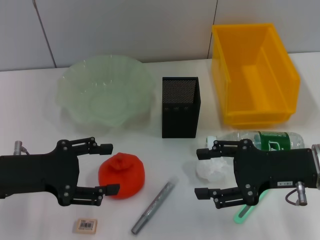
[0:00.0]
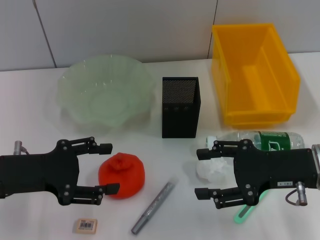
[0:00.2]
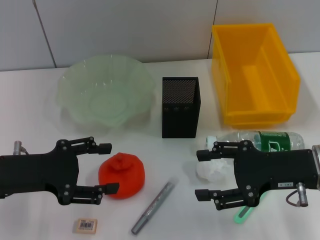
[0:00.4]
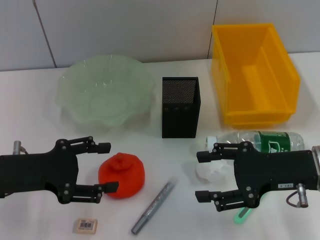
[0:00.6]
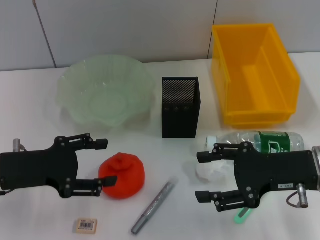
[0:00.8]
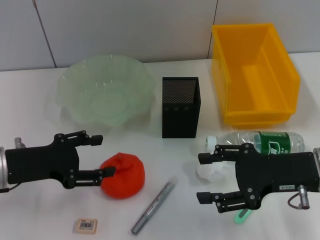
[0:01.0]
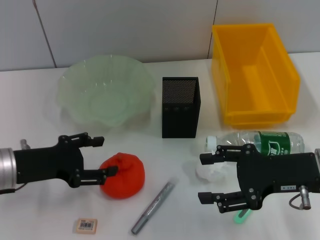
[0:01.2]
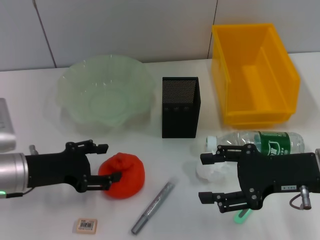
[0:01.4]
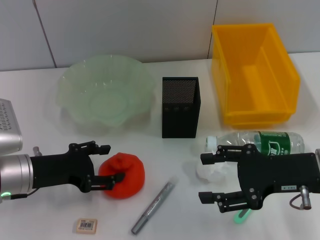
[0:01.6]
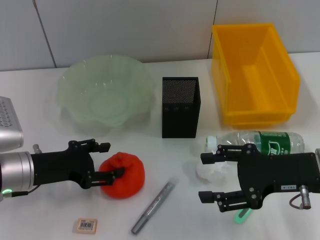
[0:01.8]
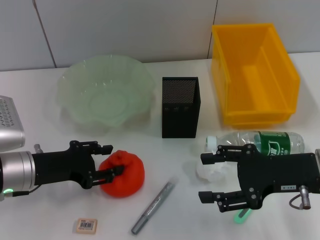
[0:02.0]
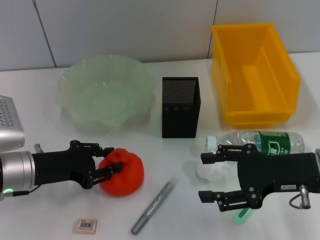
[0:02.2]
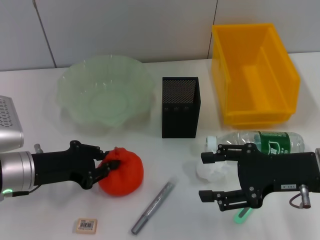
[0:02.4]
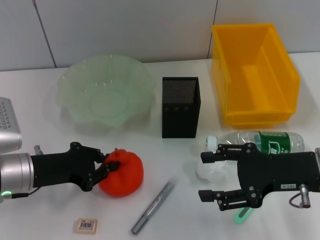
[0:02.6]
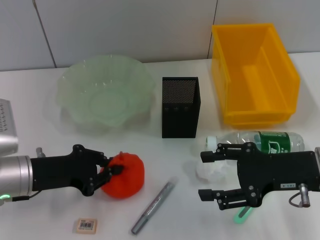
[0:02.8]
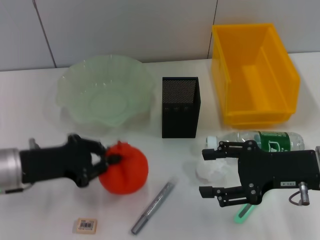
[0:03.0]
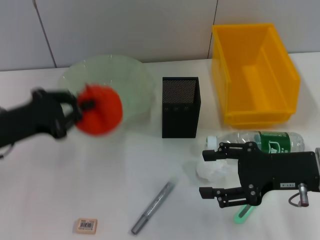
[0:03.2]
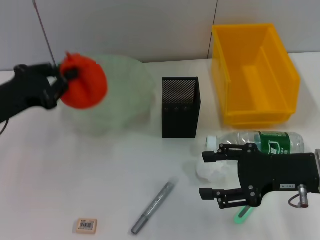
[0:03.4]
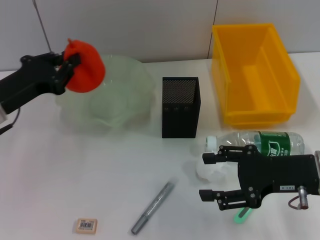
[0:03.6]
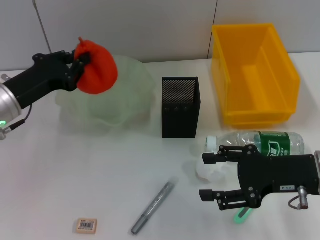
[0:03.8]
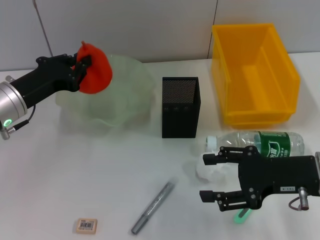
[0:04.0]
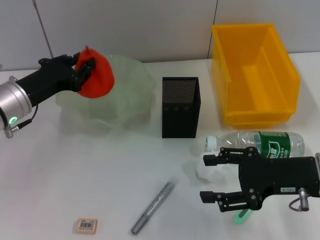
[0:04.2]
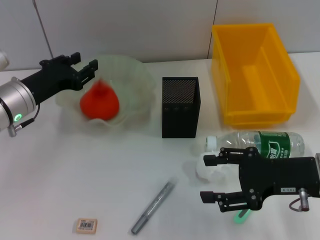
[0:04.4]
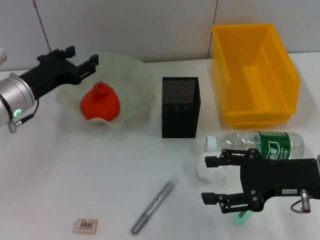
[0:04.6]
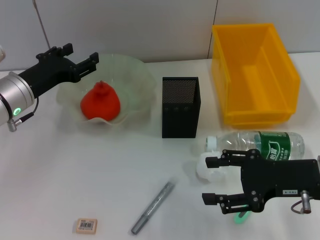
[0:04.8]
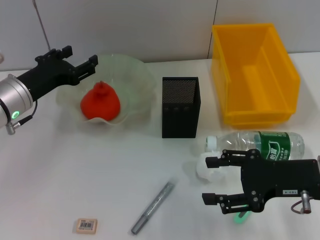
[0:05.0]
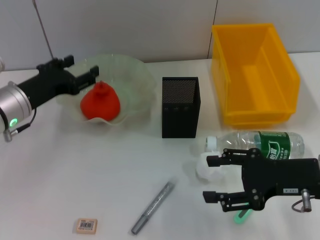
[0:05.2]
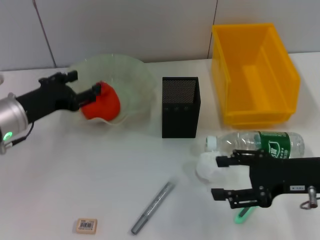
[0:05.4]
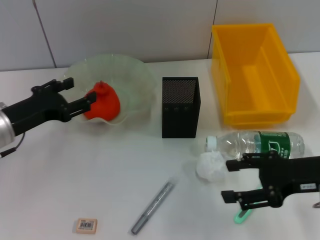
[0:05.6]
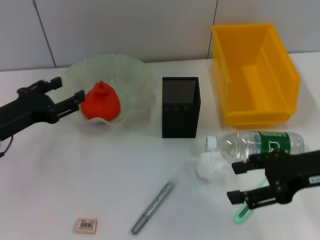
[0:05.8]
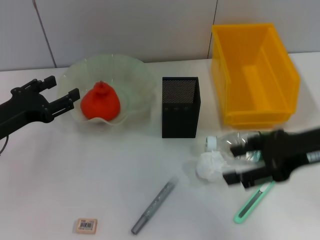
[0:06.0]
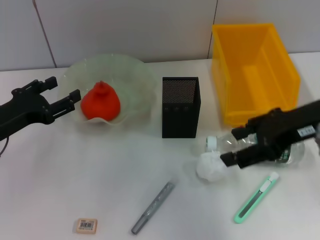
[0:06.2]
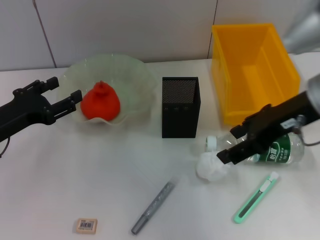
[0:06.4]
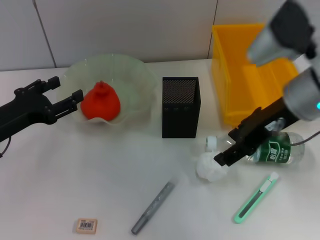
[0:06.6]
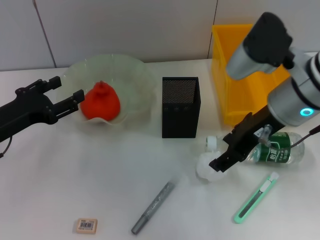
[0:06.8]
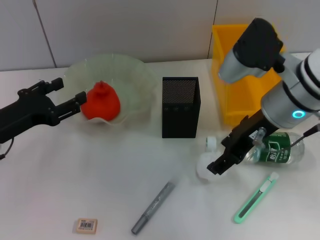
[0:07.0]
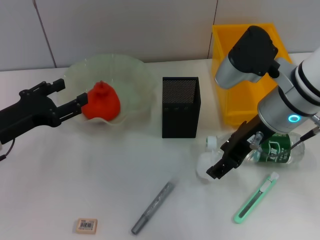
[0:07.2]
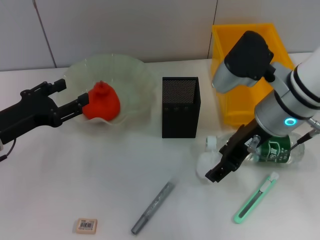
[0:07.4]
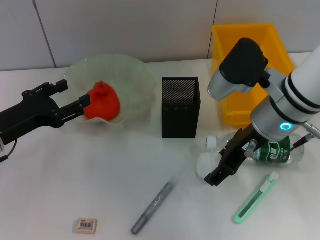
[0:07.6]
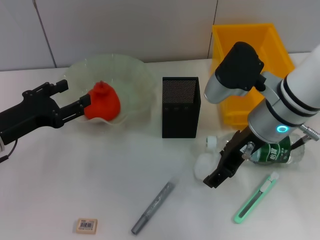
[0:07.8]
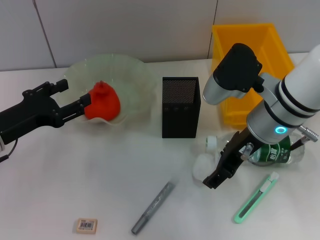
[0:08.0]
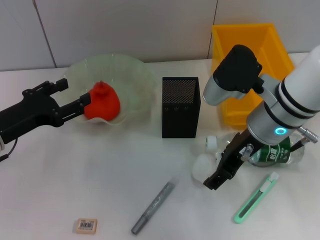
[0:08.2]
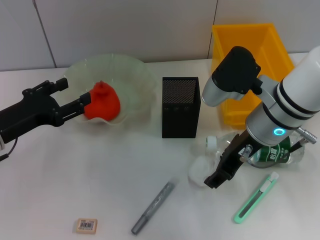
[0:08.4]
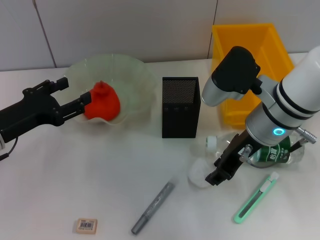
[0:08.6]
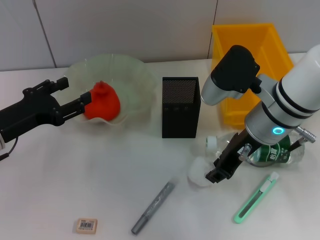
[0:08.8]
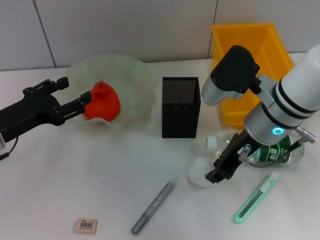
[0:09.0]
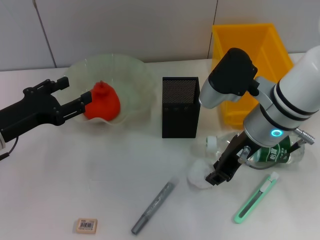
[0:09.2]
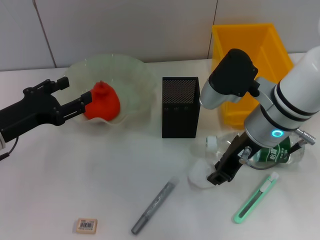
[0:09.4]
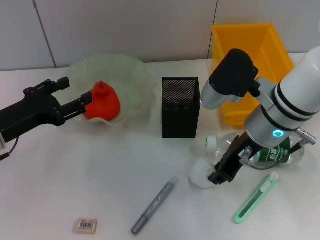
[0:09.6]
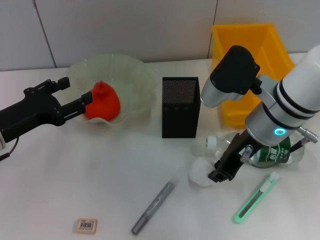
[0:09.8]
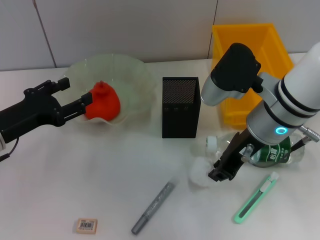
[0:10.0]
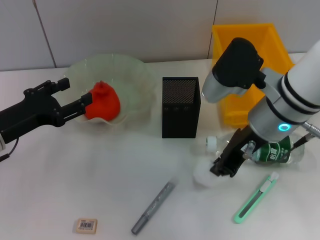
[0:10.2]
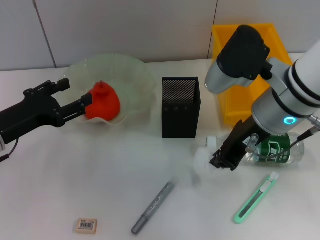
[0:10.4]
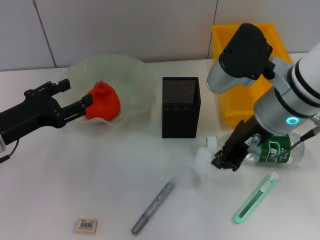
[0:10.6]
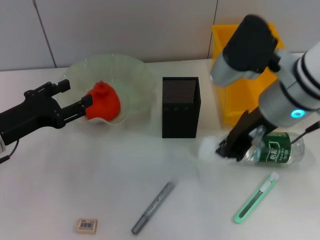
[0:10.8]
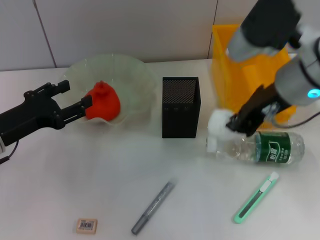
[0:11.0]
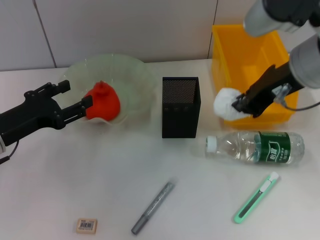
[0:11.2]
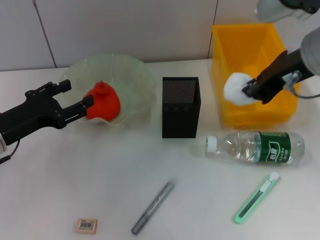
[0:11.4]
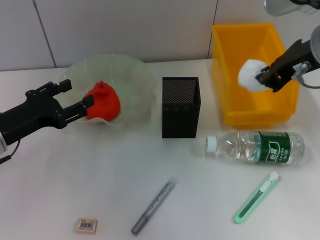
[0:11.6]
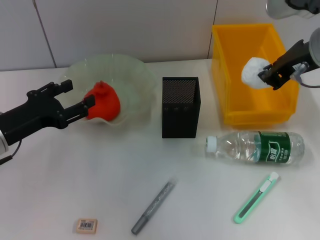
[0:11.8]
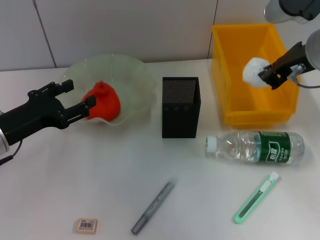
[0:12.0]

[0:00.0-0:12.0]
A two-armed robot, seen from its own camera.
Step, 0:00.0 to 0:02.2: Grab the orange with the left hand.
Step, 0:02.6 to 0:04.6: Place the orange into the fruit bowl with the left hand.
Step, 0:04.8 to 0:08.8: Grab the paper ball with the right hand.
0:00.0 to 0:01.6: The left gripper shifts by some 5 cm.
0:01.6 to 0:03.0: The left gripper closes up.
0:03.0 to 0:04.4: The left gripper travels forward by approximately 10 cm.
0:04.4 to 0:06.0: The right gripper shifts roughly 10 cm upward, while the left gripper heads backward and to the left, covering roughly 10 cm, and opens.
0:06.0 to 0:07.6: The right gripper moves to the left and forward, about 10 cm.
0:07.6 to 0:09.0: The right gripper closes its fingers.
0:09.0 to 0:10.4: There are only small adjustments of the grippers.
0:10.4 to 0:12.0: The right gripper moves to the right, approximately 5 cm.

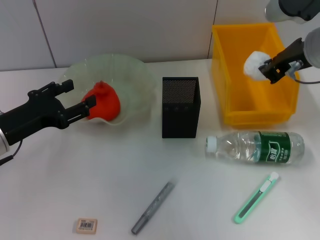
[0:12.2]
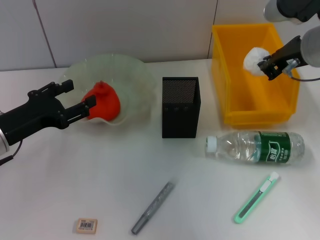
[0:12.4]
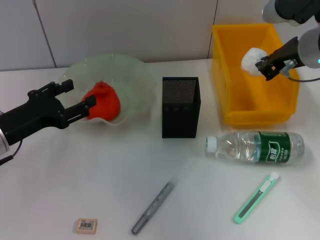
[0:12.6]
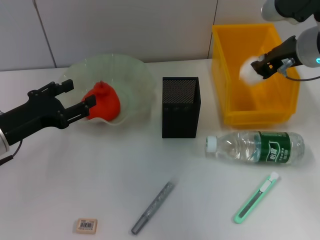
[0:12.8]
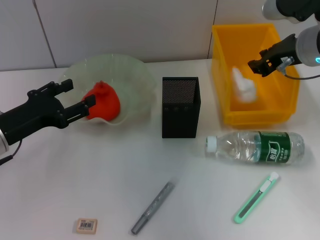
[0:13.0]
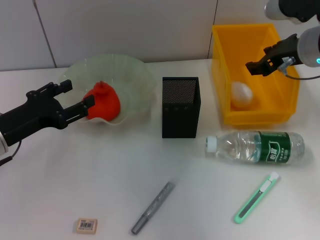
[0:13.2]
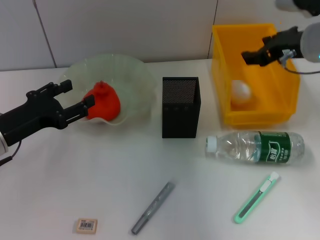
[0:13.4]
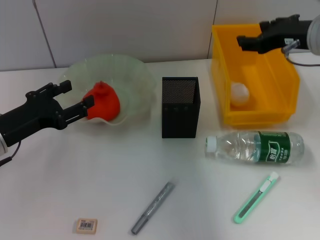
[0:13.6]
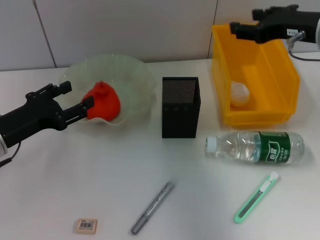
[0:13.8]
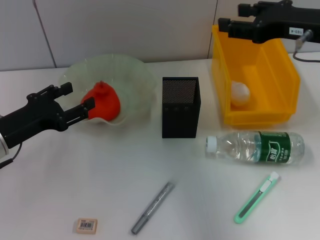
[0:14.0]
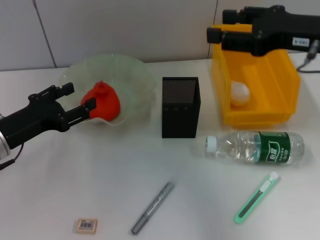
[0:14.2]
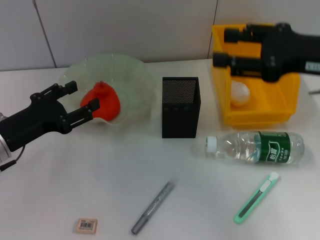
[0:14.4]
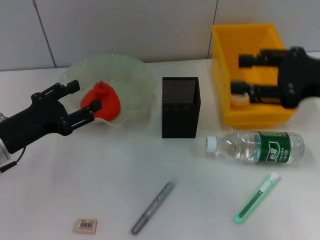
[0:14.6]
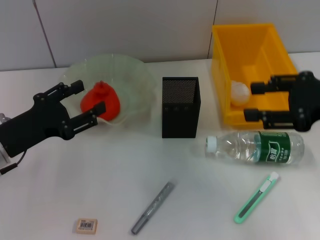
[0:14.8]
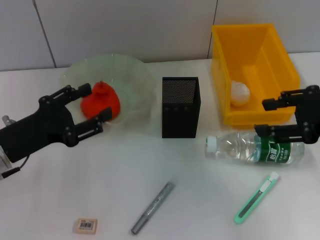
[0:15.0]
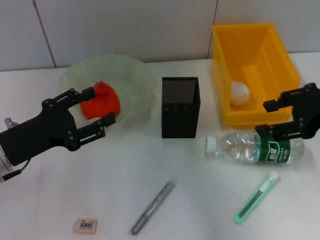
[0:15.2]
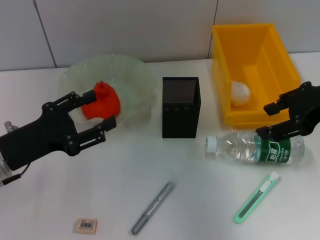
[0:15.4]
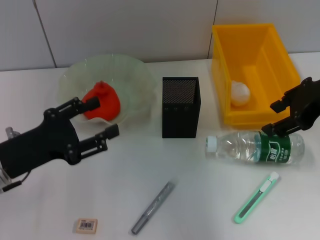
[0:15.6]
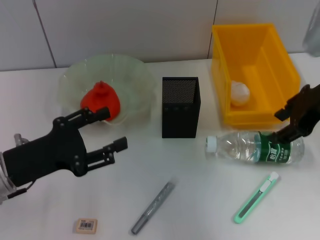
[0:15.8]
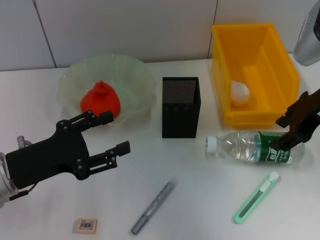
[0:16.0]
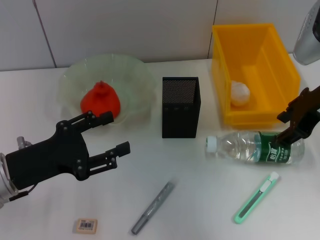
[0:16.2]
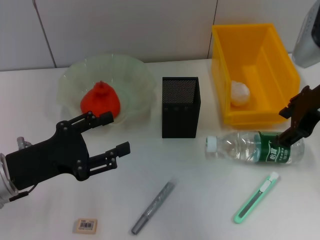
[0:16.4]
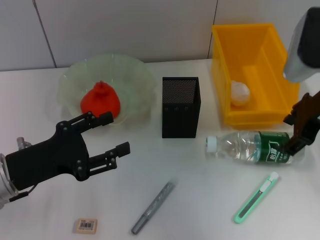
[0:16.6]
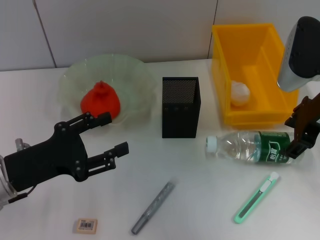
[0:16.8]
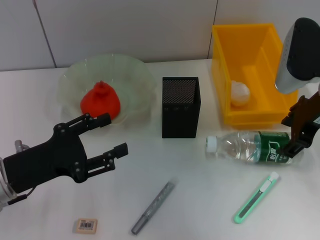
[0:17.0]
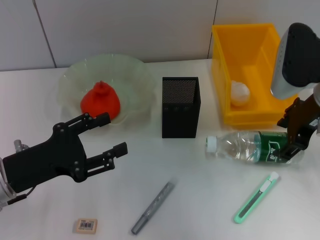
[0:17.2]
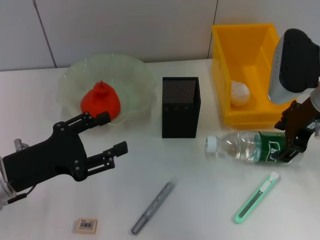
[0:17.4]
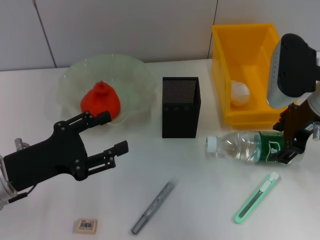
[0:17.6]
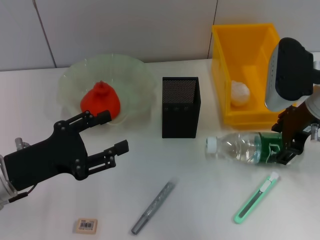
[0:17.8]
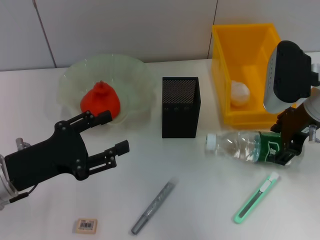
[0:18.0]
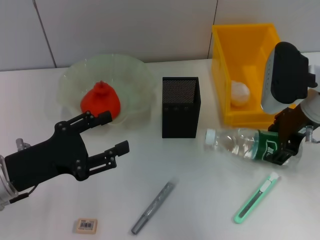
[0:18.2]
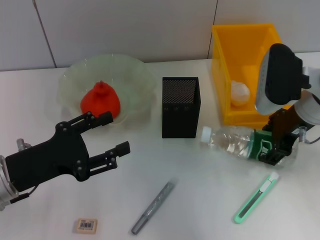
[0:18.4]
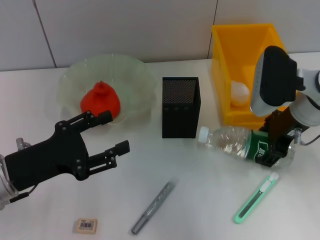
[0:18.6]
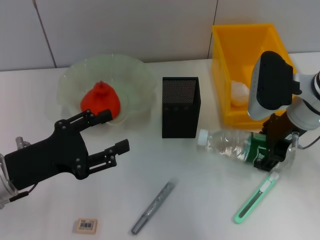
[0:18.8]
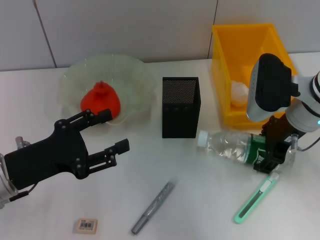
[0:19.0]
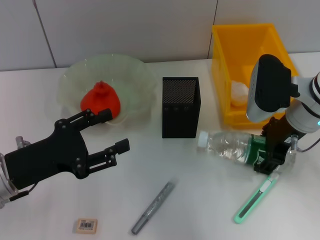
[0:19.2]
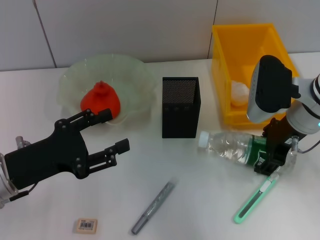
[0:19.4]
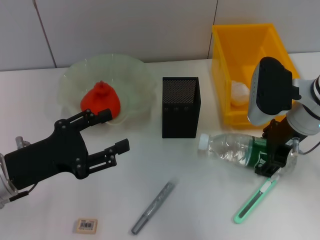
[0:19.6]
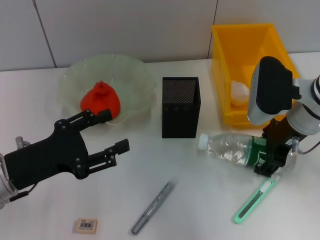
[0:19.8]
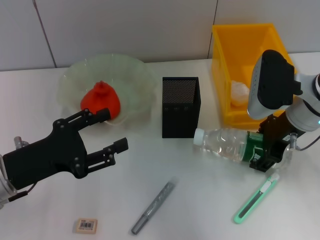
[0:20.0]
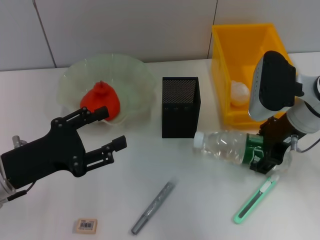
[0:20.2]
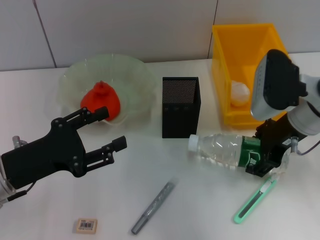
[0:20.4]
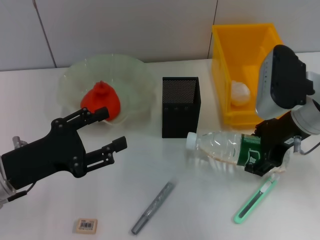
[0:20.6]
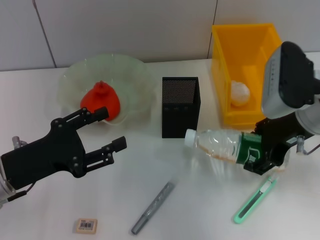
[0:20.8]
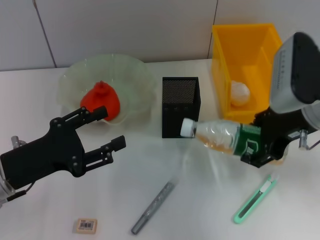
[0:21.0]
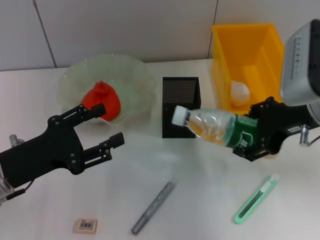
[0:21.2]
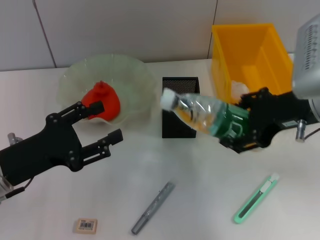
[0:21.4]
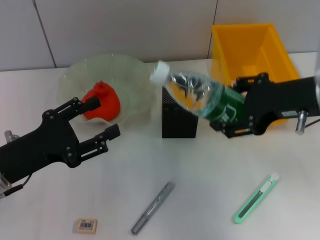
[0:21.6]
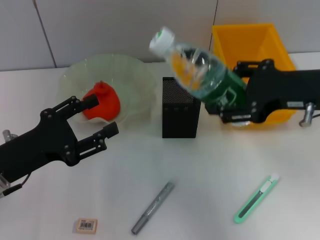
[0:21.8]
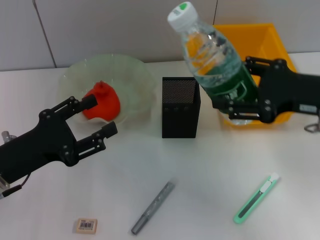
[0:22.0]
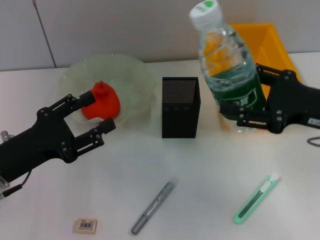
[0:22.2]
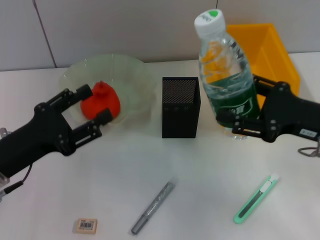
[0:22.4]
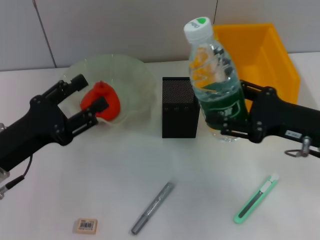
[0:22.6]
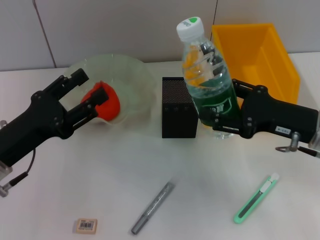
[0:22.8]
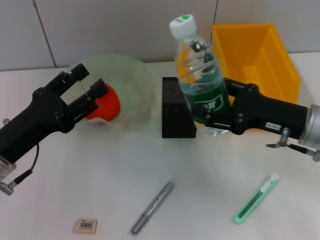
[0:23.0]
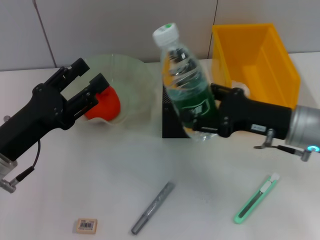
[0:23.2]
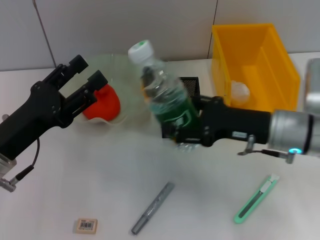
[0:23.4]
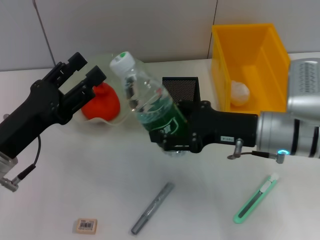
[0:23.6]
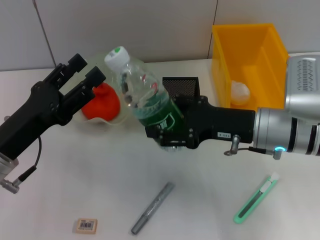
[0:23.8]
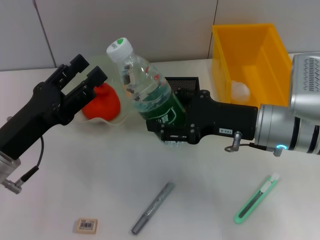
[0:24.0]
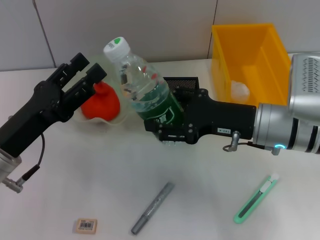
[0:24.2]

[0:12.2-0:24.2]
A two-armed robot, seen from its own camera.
Step, 0:12.2 to 0:14.6: Place the paper ball into the trash can with the right hand.
Step, 0:14.8 to 0:18.2: Grab the water bottle with the right hand.
0:12.2 to 0:13.8: The right gripper opens its fingers.
0:13.8 to 0:15.2: The right gripper moves backward, approximately 5 cm.
0:15.2 to 0:16.6: The right gripper shifts by some 5 cm.
0:16.6 to 0:18.2: The grippers make only small movements.
0:18.2 to 0:19.8: The grippers move only a little.
0:19.8 to 0:21.2: The right gripper is displaced upward by approximately 5 cm.
0:21.2 to 0:22.6: The right gripper goes about 10 cm downward.
0:22.6 to 0:24.2: The right gripper moves to the left, some 10 cm.
